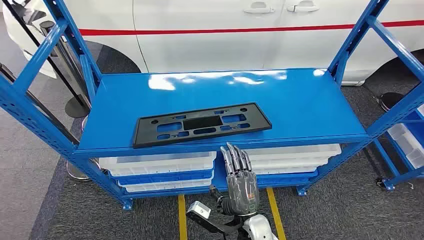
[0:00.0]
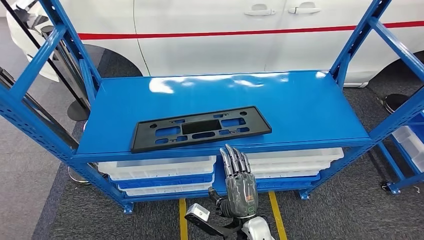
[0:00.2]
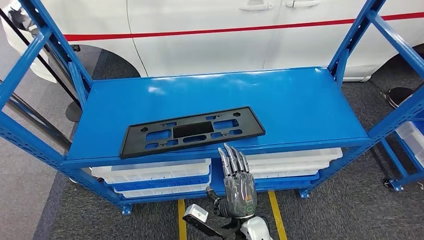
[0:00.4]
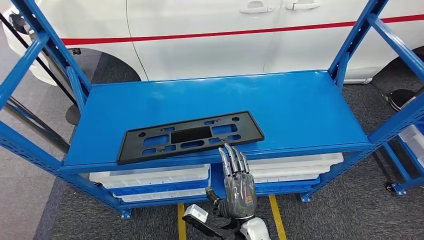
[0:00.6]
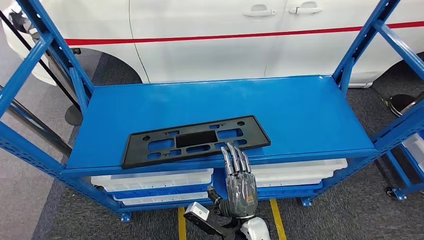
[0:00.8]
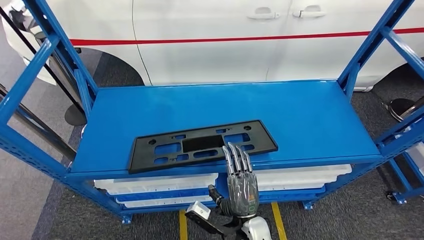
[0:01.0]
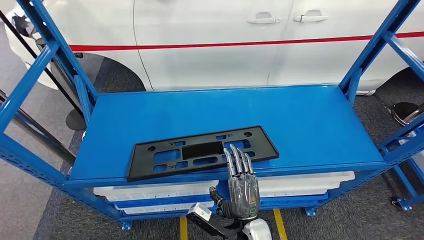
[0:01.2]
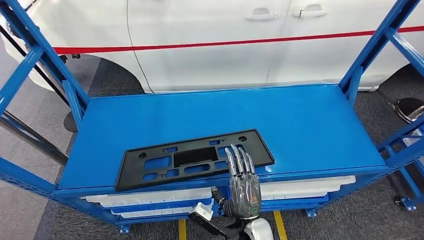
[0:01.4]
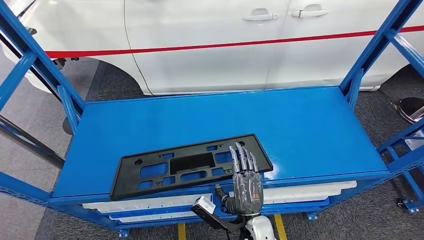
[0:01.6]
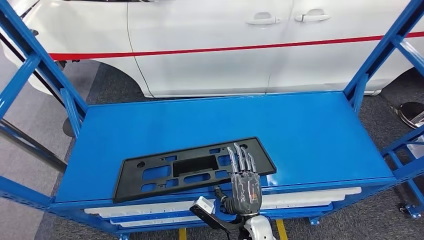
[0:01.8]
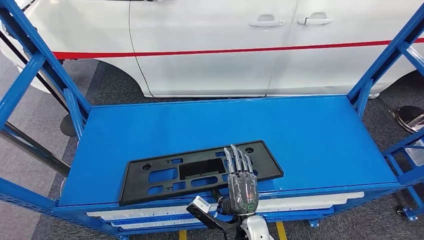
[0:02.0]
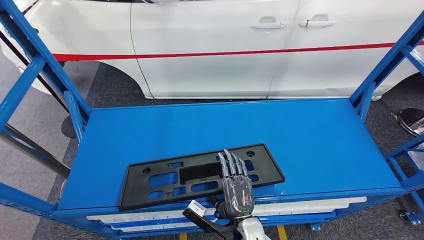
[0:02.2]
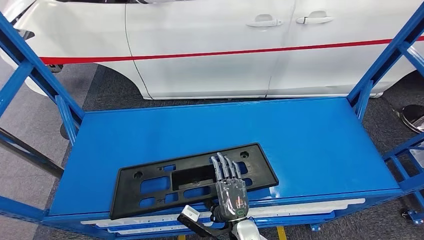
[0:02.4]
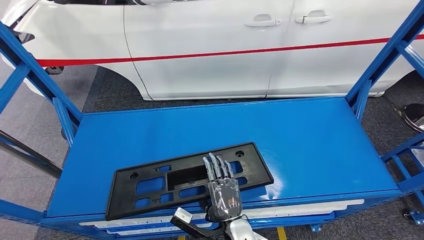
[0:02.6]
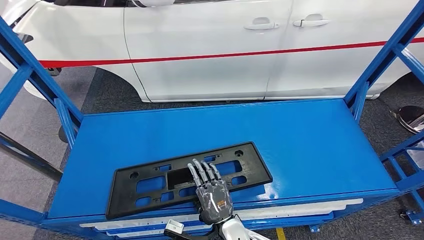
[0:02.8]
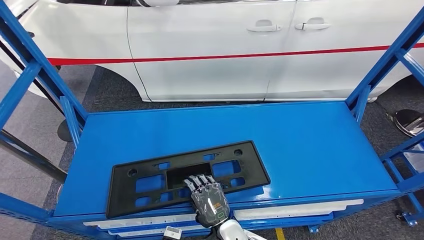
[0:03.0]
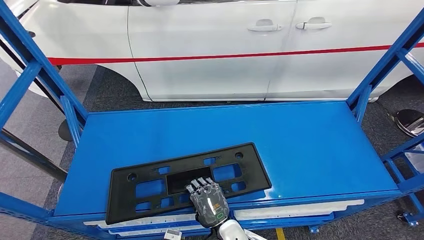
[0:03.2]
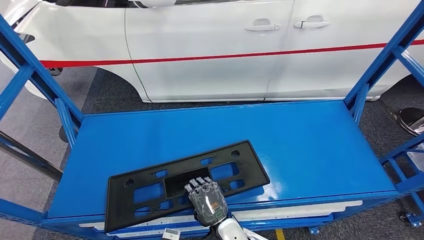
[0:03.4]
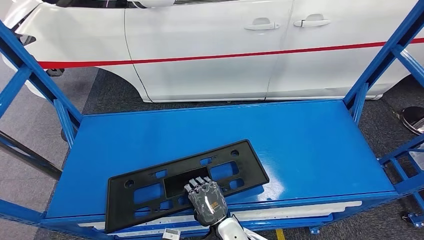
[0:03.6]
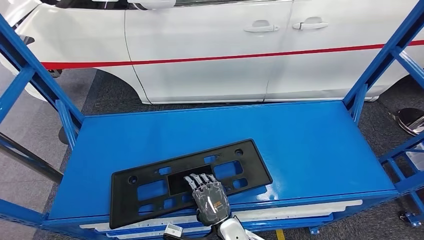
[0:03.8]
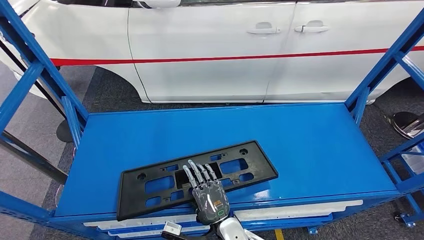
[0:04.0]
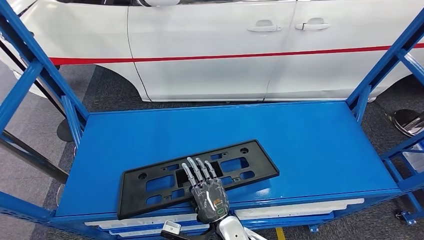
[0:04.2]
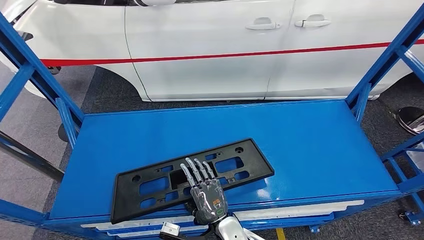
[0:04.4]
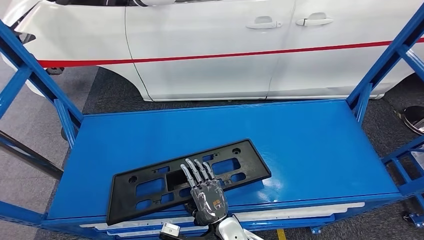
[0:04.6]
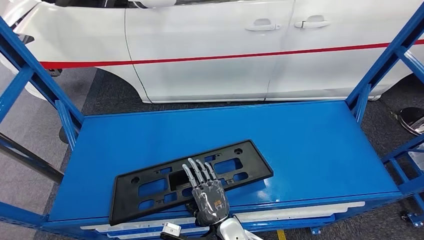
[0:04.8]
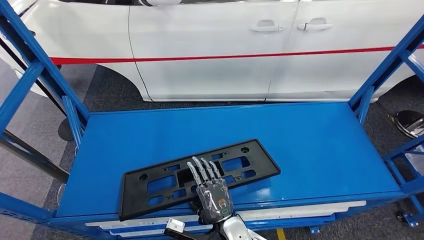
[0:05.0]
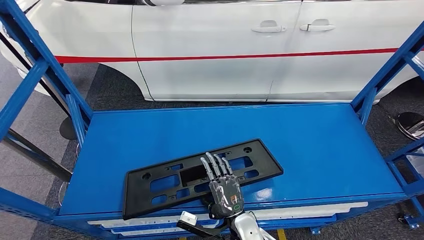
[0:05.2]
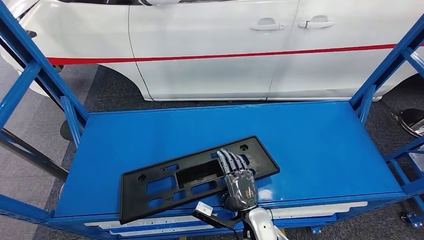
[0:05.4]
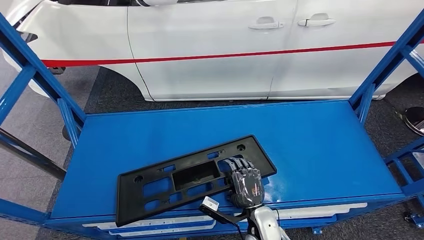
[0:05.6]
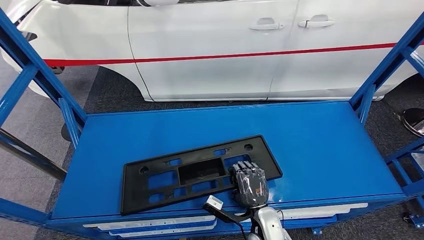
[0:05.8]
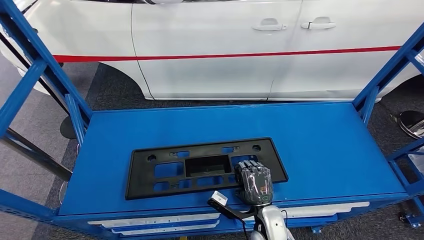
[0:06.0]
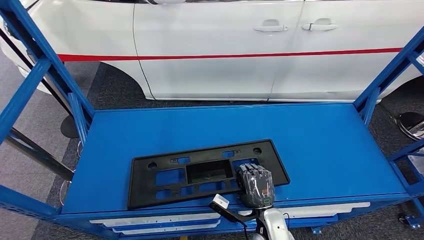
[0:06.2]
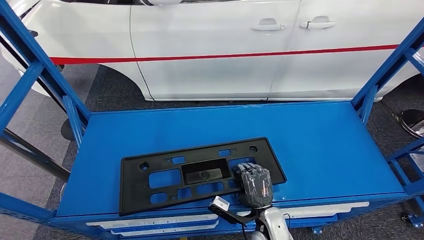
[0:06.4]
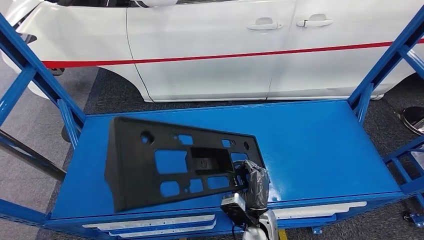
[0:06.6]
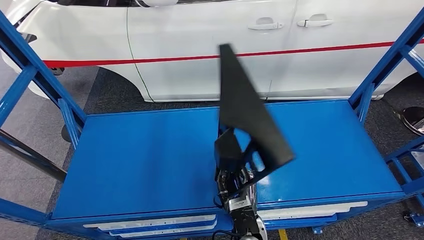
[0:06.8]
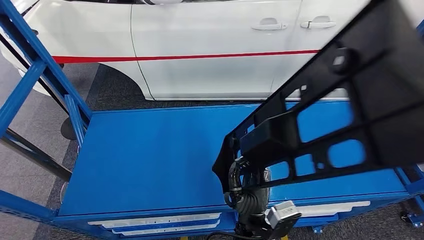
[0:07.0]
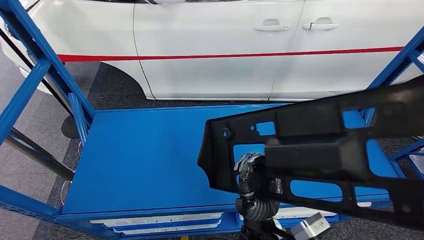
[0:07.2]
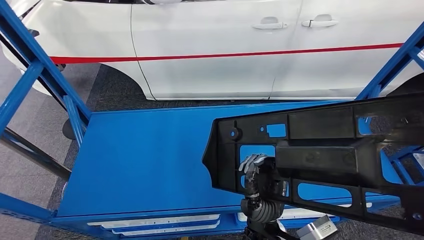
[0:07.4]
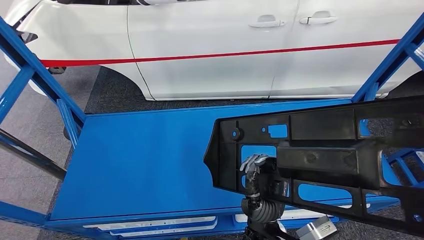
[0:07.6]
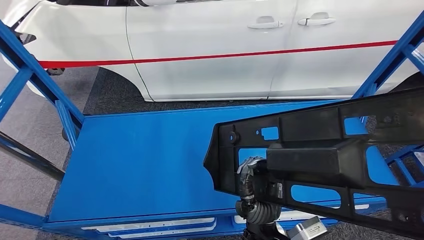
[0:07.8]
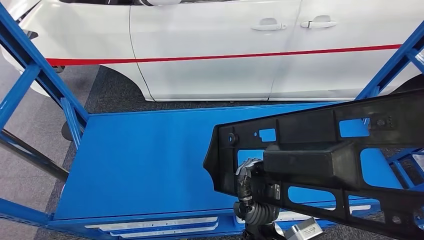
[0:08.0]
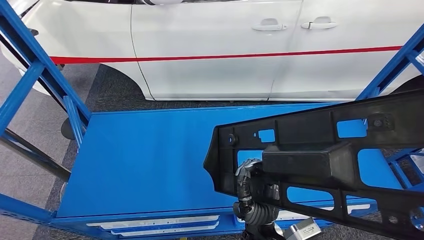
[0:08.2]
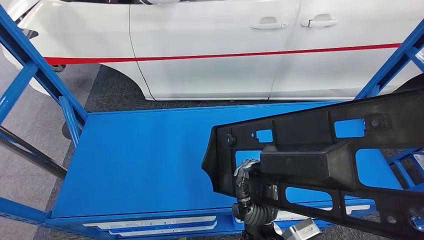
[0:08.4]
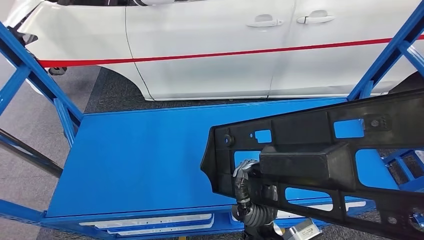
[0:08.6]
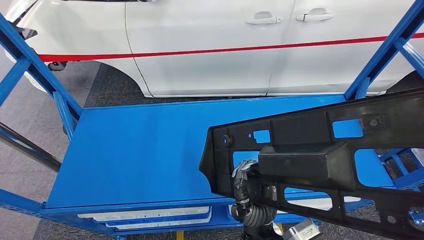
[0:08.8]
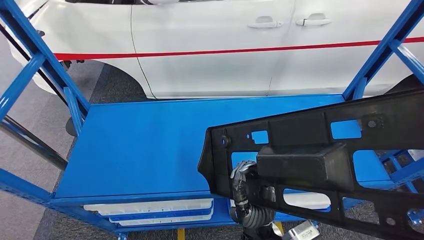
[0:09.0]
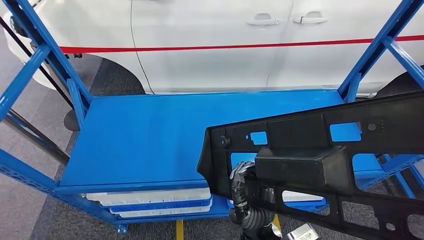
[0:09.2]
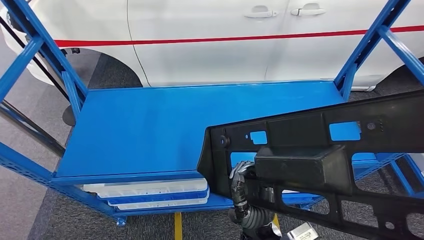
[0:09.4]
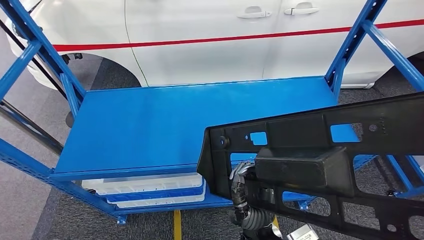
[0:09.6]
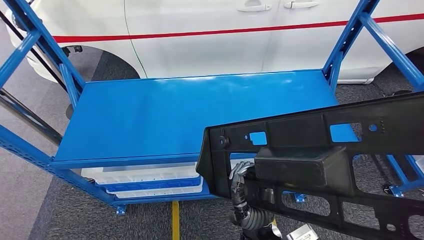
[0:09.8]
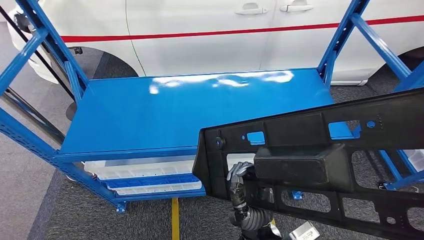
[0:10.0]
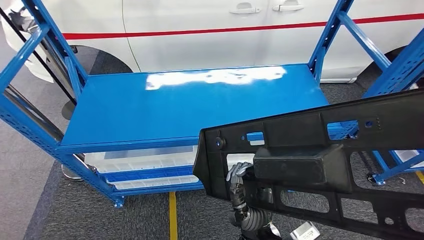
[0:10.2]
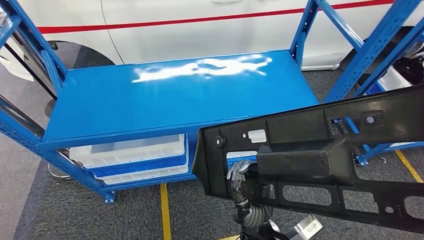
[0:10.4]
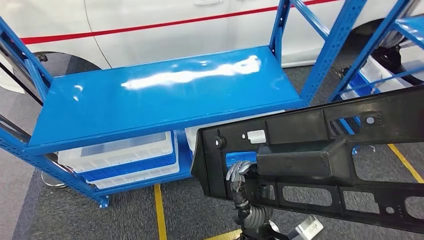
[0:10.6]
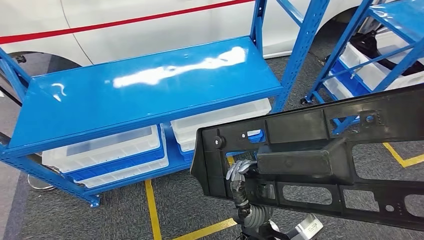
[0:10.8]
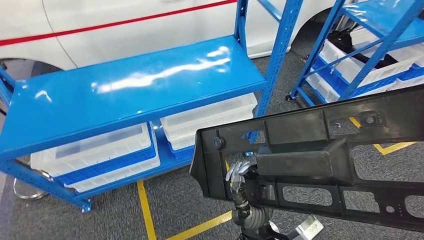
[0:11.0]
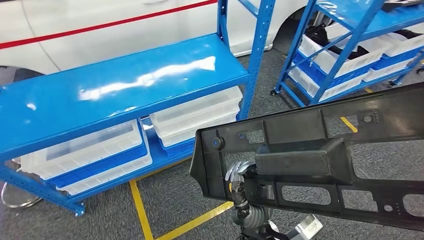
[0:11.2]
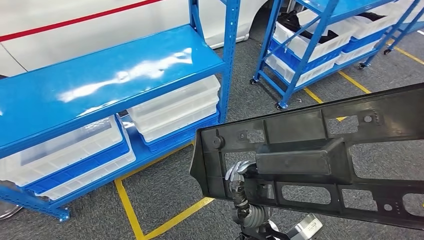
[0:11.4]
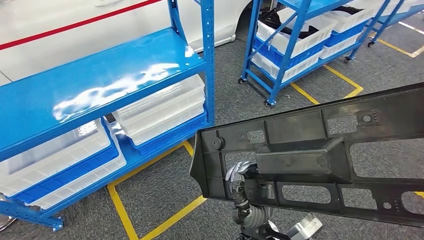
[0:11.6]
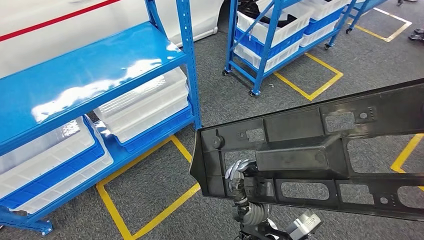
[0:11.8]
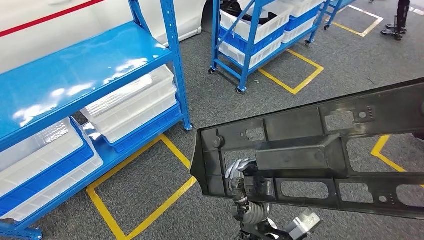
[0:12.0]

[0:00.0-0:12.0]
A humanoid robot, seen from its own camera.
Step, 0:00.0 to 0:11.4: Pick up the large material from the shelf.
0:03.0 to 0:04.4: Both hands stay put.

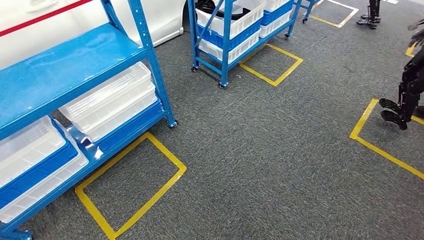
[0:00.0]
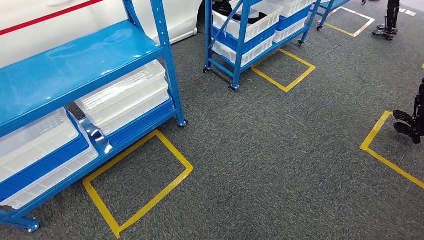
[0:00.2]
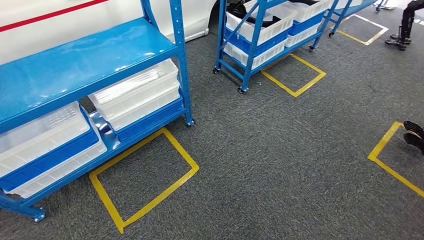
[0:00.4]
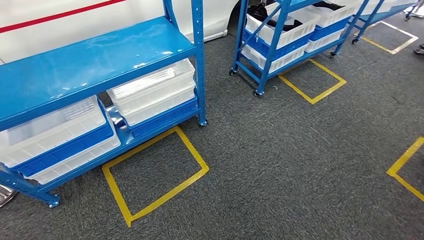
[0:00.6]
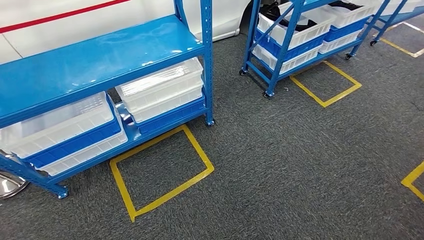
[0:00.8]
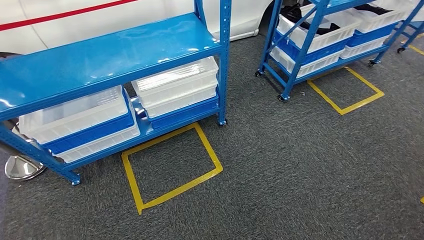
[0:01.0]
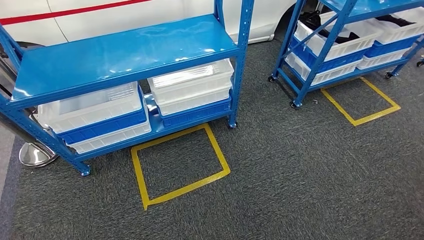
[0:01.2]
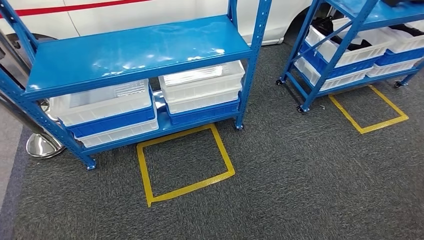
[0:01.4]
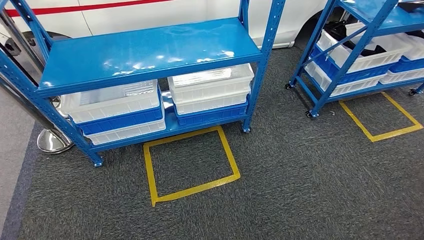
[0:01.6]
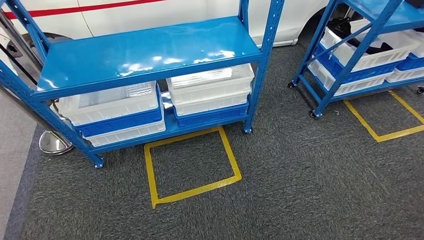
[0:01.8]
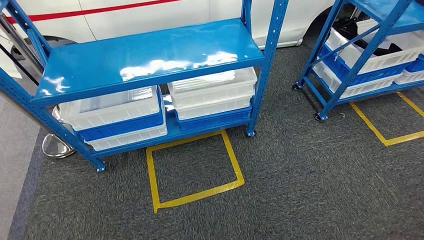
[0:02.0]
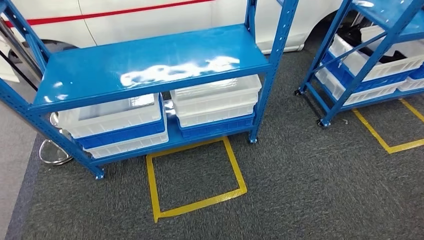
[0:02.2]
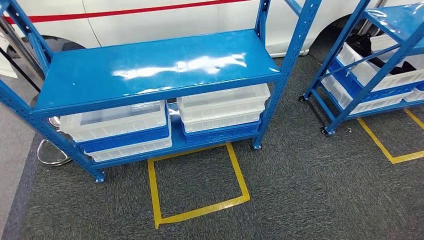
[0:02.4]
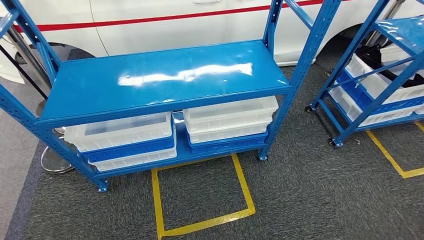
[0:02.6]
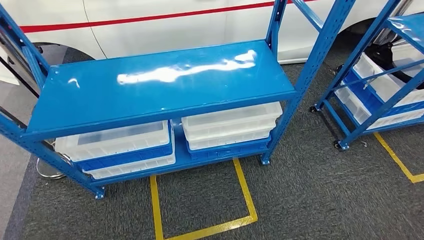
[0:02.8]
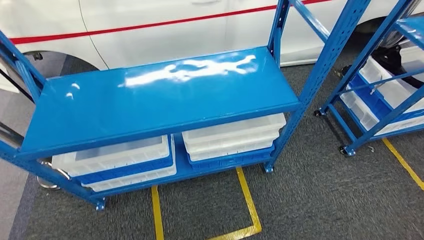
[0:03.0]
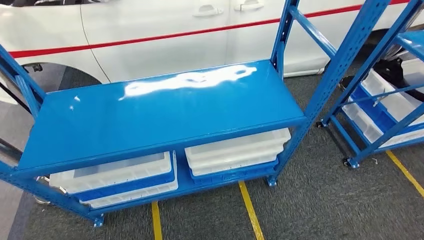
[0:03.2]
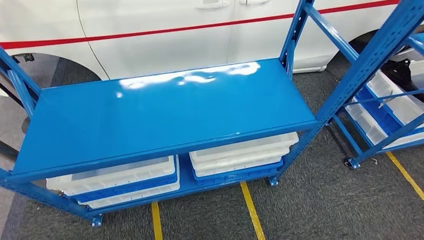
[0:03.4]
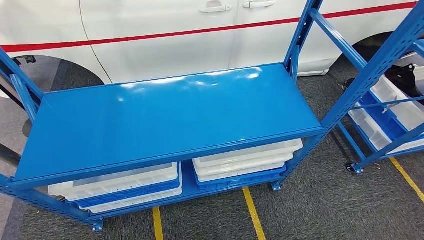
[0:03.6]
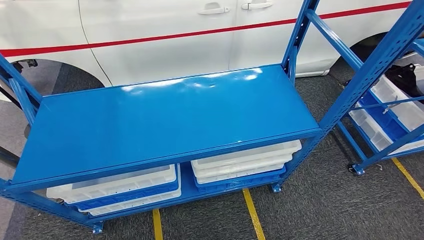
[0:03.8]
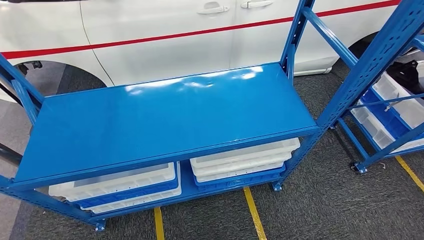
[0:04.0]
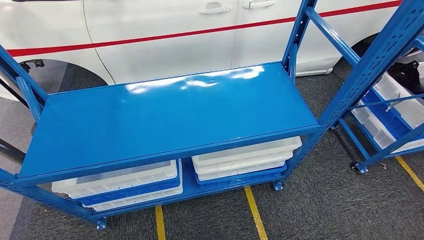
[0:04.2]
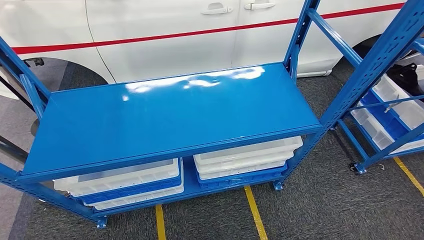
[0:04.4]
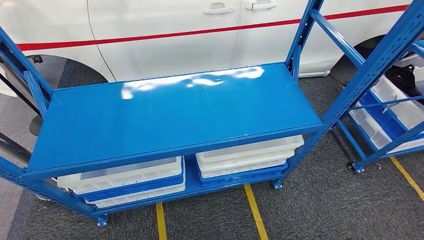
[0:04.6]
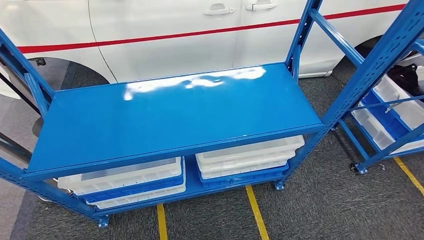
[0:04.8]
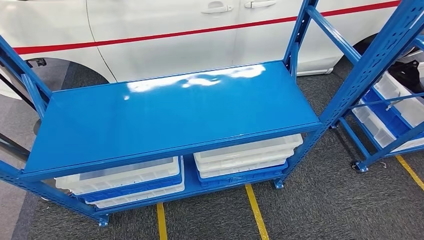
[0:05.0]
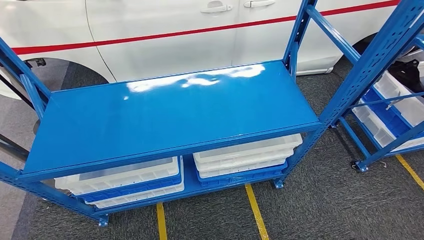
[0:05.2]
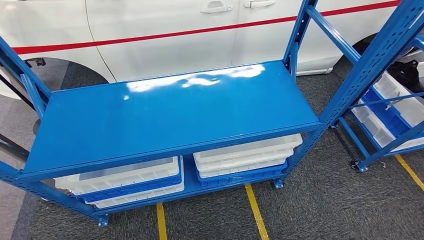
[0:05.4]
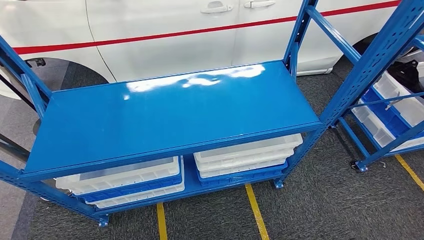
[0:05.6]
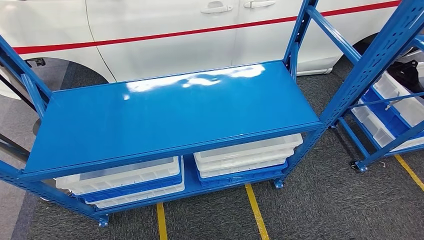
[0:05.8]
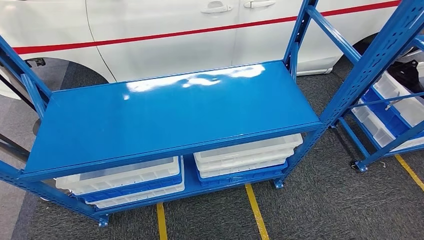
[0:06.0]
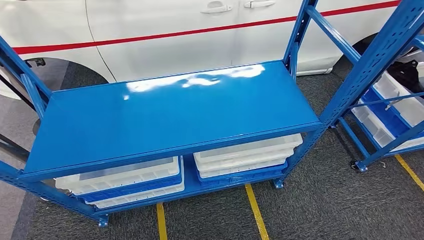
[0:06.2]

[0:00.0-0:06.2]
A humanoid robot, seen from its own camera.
Step, 0:00.0 to 0:06.0: Move to the initial position of the shelf.
0:04.6 to 0:06.2: The hands move only a little.
